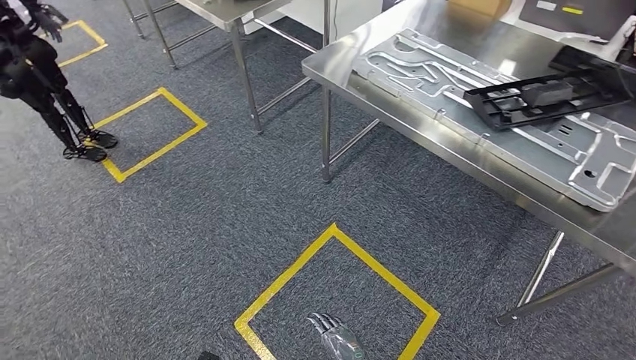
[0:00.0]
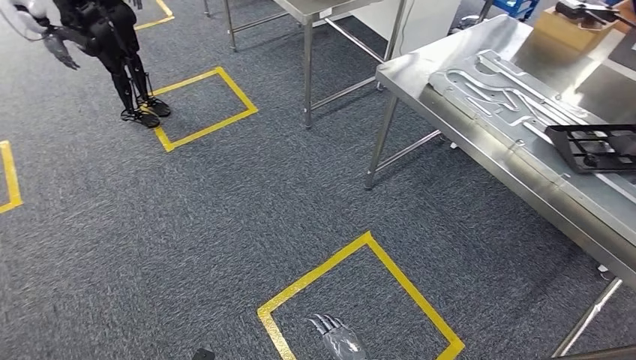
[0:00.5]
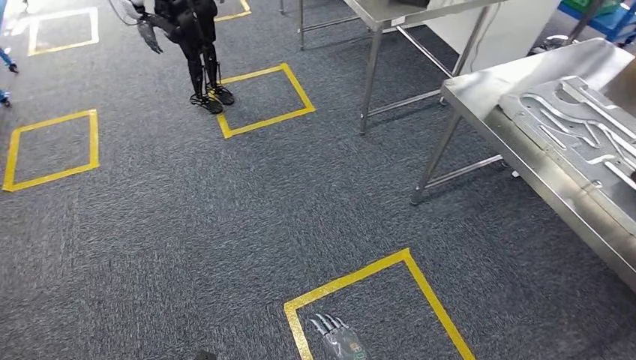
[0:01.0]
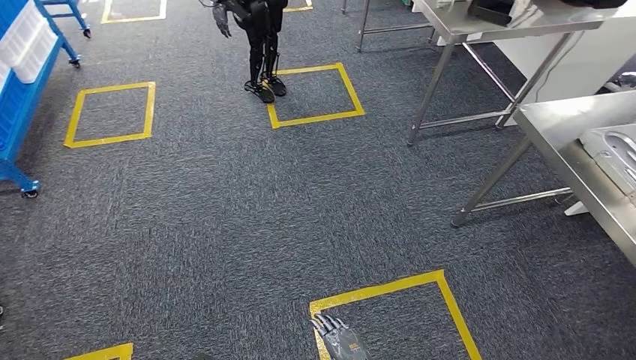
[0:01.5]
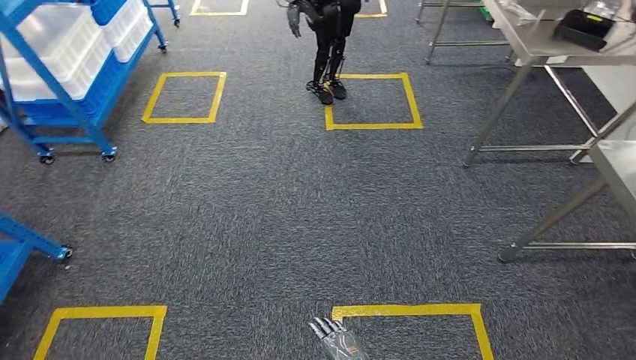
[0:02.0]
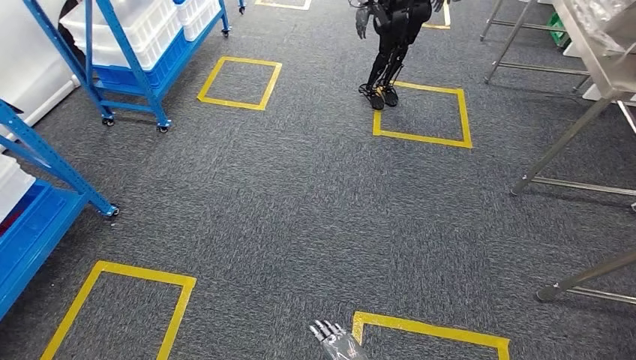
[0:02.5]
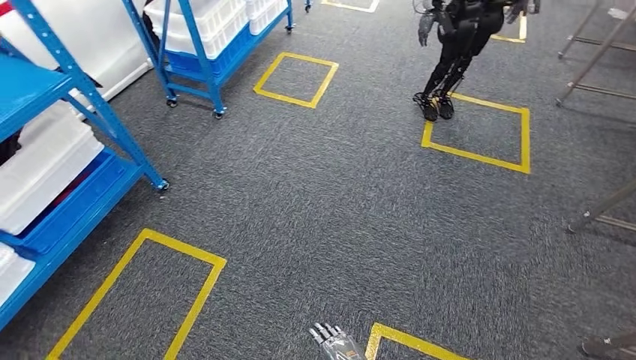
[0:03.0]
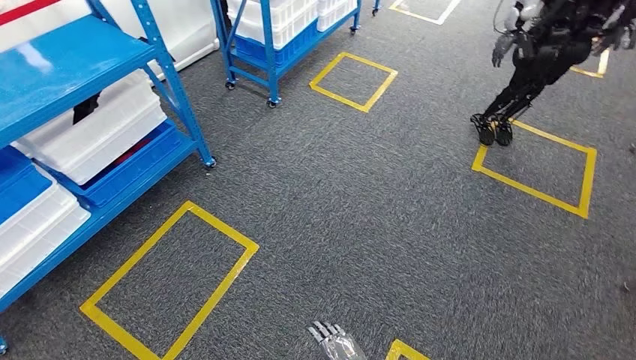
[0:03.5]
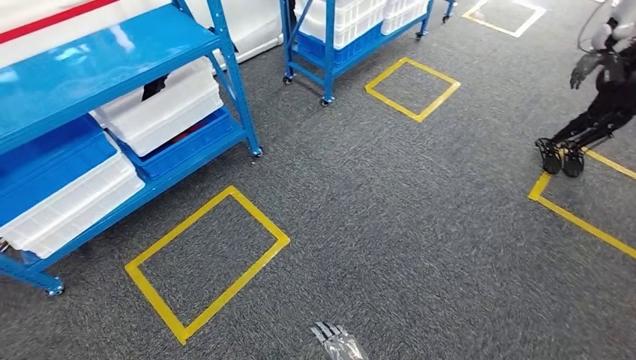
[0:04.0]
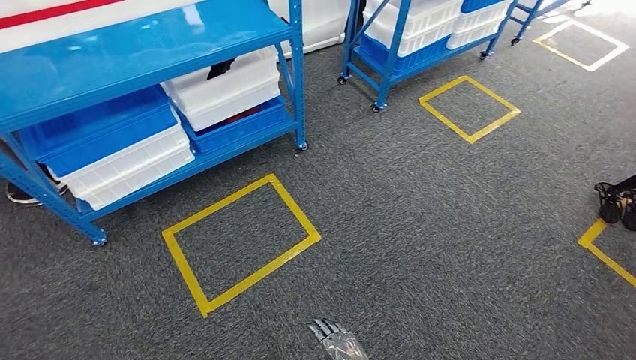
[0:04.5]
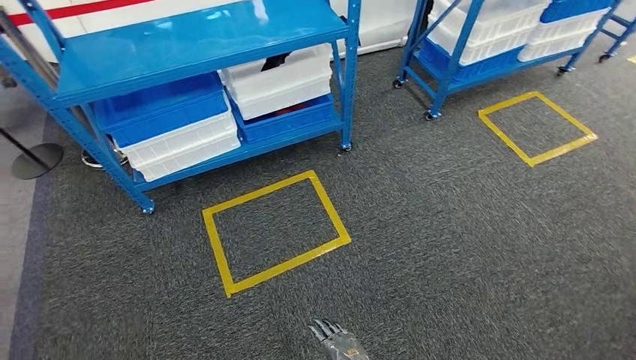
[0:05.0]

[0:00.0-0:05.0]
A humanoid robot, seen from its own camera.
Step, 0:00.0 to 0:05.0: Move to the initial position of the shelf.
